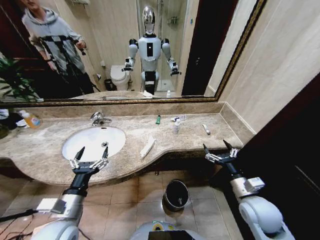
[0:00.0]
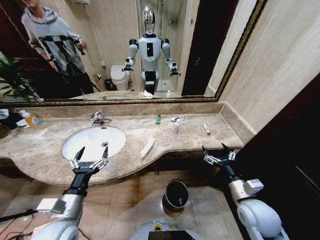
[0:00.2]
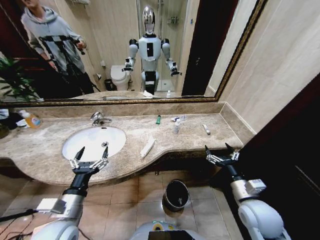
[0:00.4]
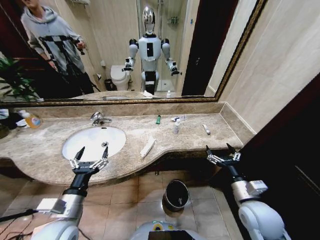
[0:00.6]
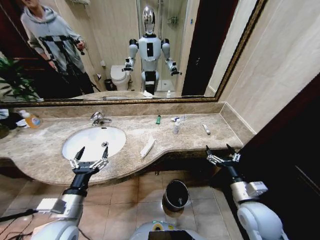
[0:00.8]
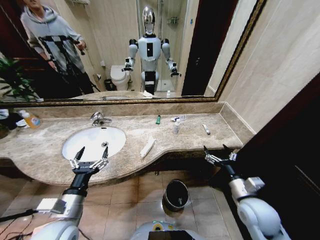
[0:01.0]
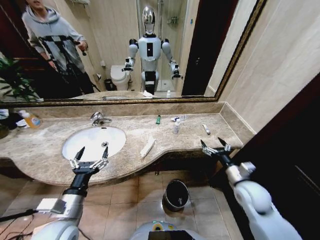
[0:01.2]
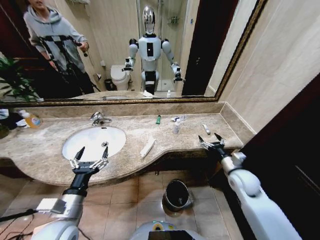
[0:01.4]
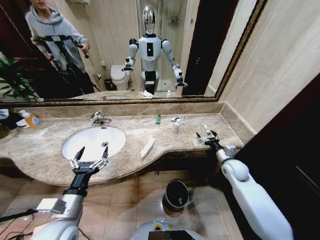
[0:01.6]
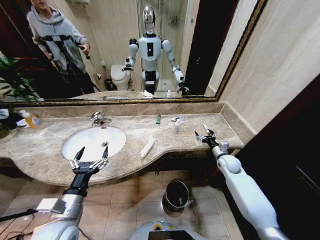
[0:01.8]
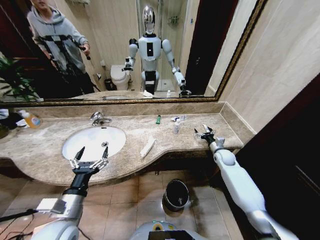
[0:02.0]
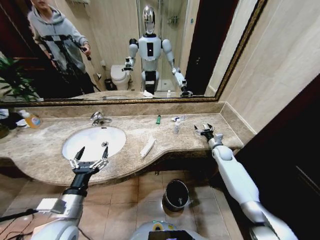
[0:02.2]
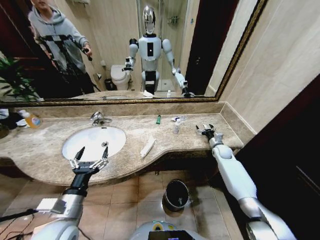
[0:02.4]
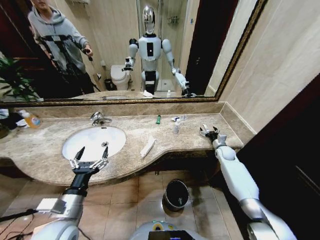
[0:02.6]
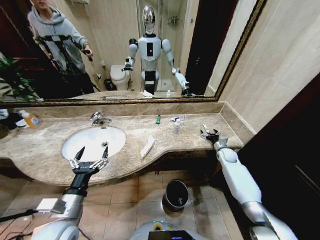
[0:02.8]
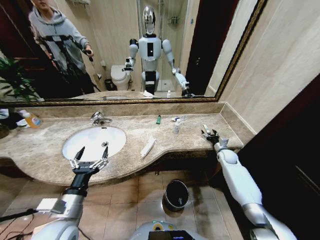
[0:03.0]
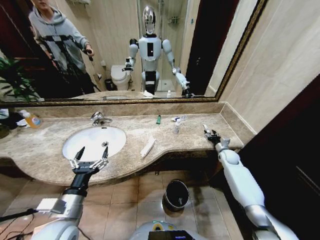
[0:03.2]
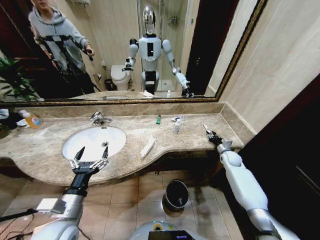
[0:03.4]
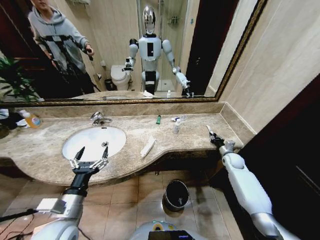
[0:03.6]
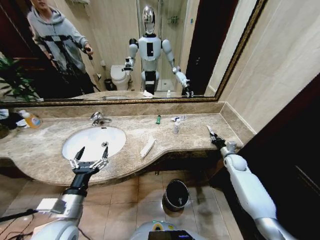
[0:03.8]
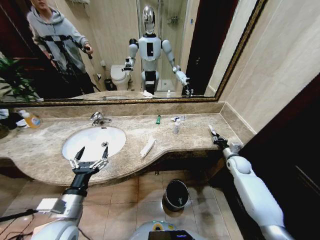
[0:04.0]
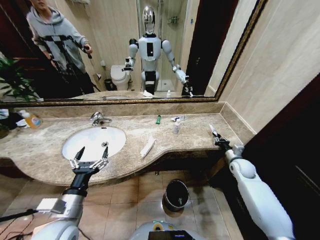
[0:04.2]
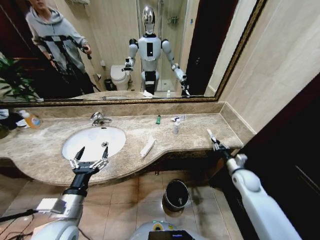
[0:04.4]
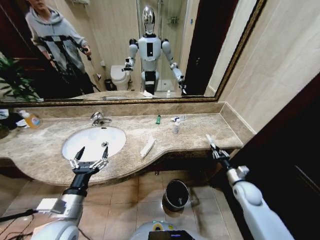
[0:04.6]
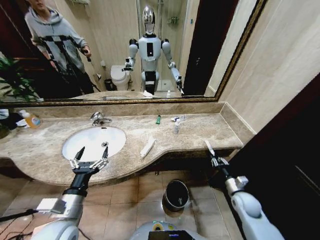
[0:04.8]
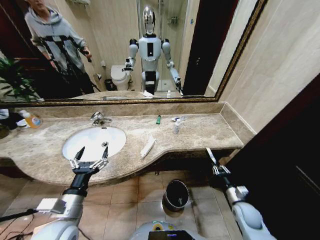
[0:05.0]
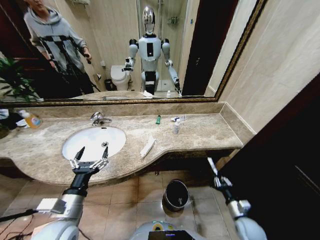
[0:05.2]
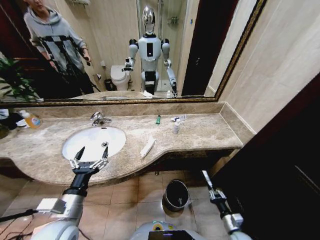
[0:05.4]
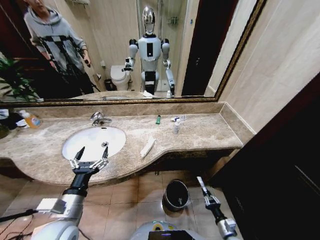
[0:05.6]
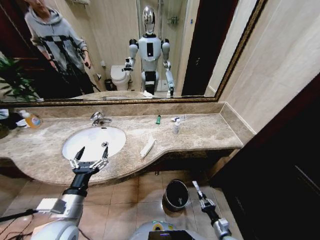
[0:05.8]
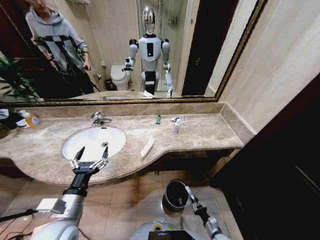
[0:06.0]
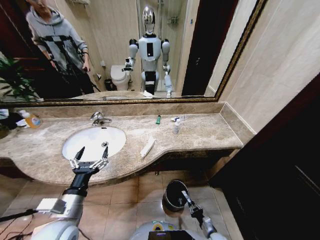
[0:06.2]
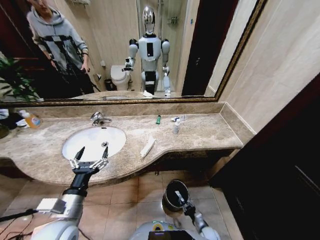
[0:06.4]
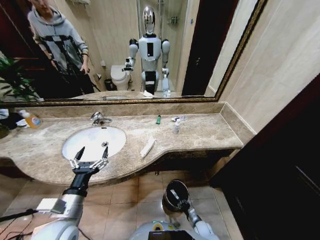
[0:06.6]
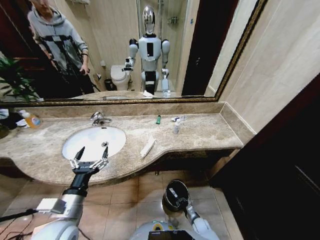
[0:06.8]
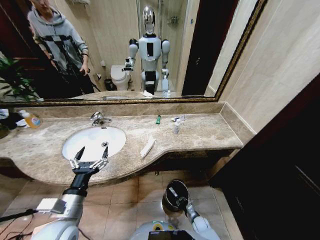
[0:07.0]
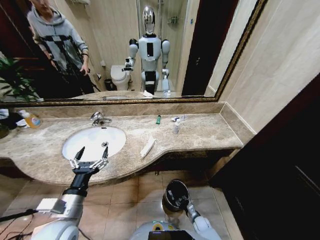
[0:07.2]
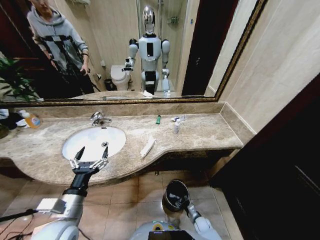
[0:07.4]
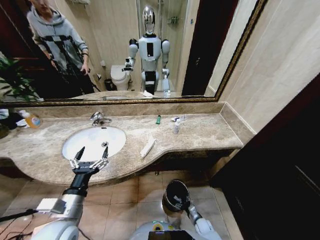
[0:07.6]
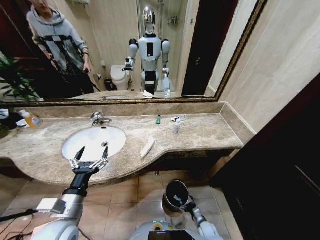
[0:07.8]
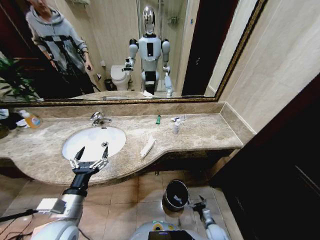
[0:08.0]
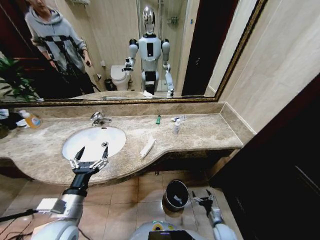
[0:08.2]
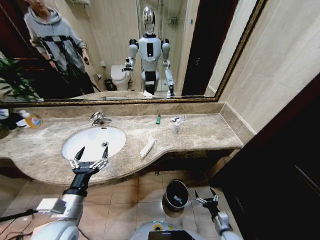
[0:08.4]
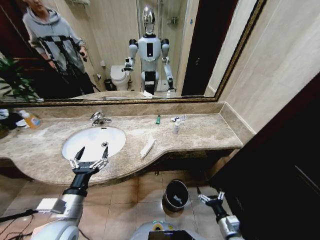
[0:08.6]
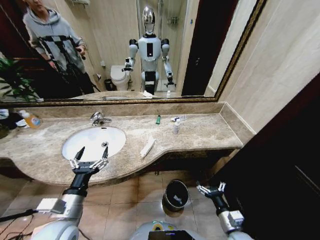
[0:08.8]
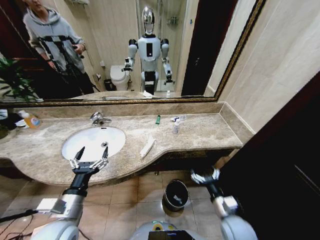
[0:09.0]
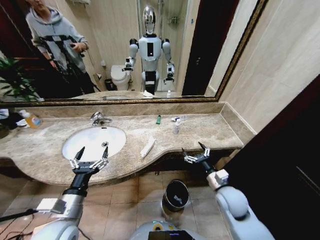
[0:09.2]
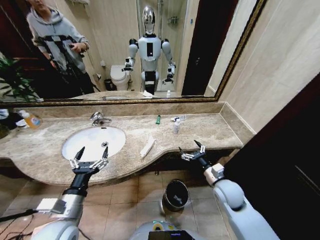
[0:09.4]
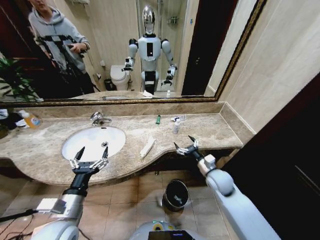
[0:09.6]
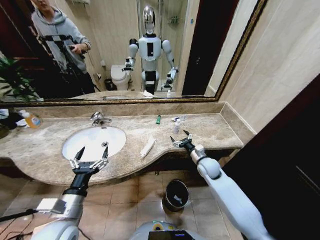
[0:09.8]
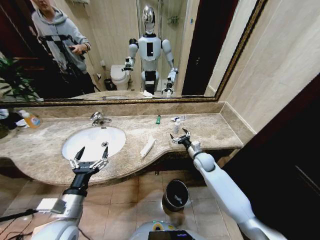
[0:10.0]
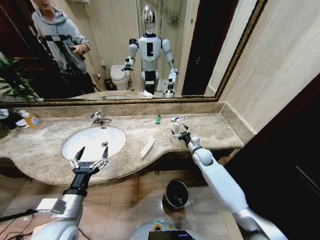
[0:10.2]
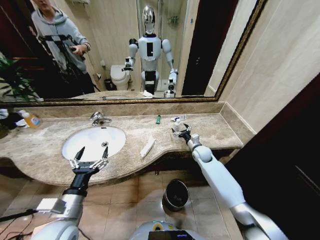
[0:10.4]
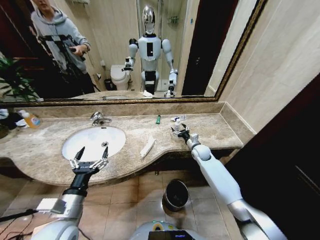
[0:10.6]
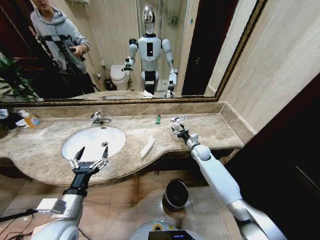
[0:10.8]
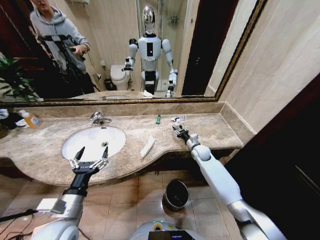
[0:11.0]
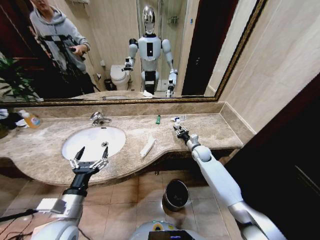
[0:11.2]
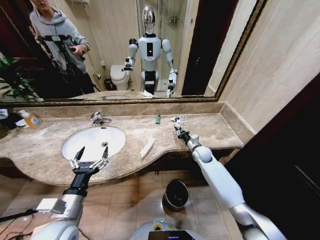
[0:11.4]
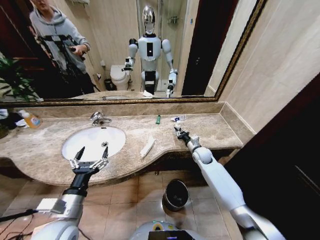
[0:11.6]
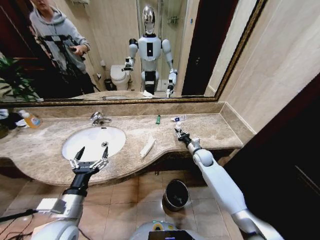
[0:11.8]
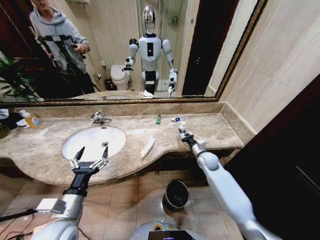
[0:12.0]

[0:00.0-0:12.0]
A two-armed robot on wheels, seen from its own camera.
Task of the whole recording: Pick up the trash from the sink and place it in the trash bin.
0:01.6 to 0:03.0: The right gripper moves forward, downward and to the right, some 15 cm.
0:03.0 to 0:04.4: The right gripper is displaced backward by some 15 cm, and closes up.
0:04.4 to 0:06.0: The right gripper heads downward and backward, covering some 35 cm.
0:06.0 to 0:07.6: The right gripper goes approximately 10 cm forward, downward and to the left, and opens up.
0:07.6 to 0:09.0: The right gripper travels upward by some 35 cm.
0:09.0 to 0:10.4: The right gripper moves forward, about 30 cm.
0:10.4 to 0:12.0: The right gripper is displaced backward by about 5 cm, and closes its fingers.

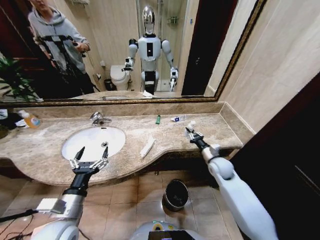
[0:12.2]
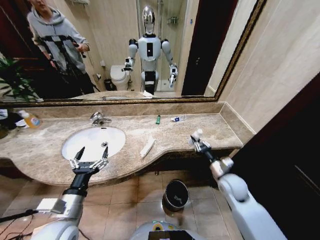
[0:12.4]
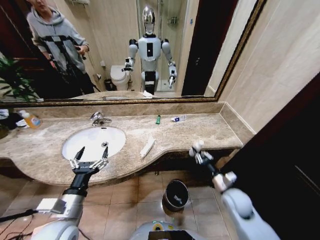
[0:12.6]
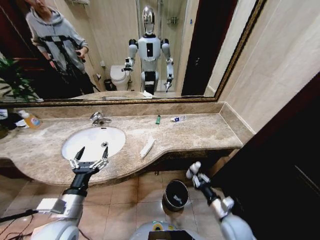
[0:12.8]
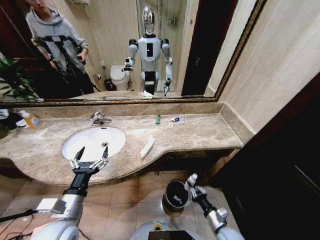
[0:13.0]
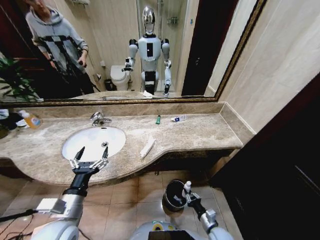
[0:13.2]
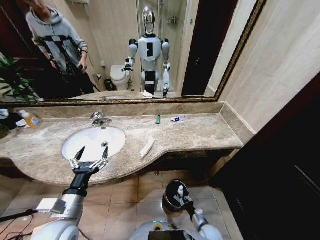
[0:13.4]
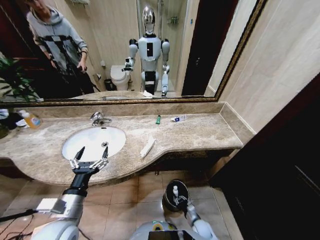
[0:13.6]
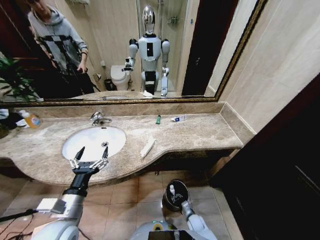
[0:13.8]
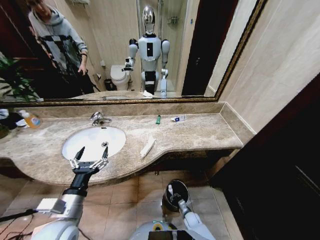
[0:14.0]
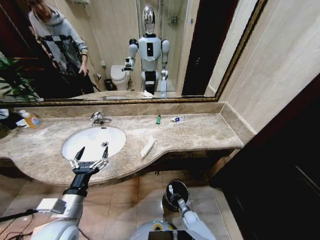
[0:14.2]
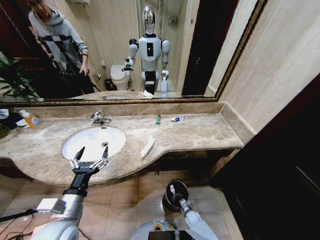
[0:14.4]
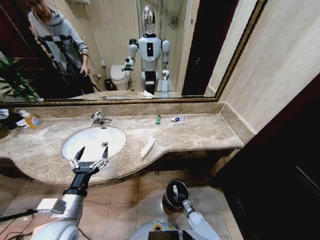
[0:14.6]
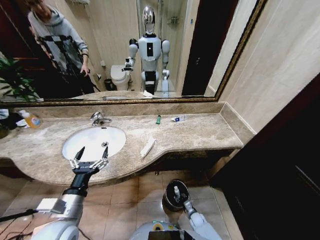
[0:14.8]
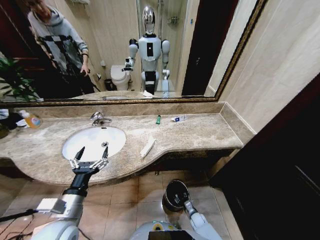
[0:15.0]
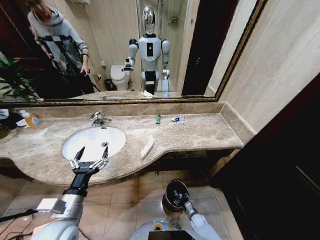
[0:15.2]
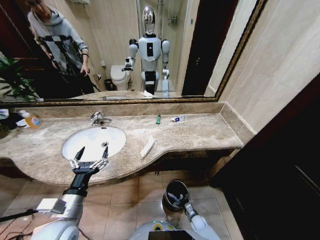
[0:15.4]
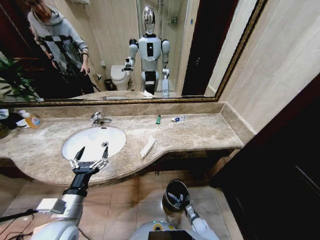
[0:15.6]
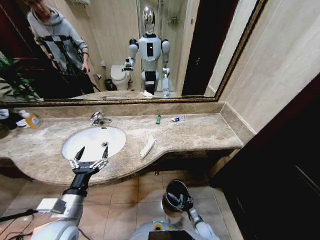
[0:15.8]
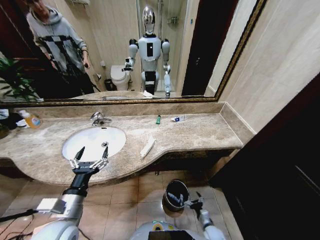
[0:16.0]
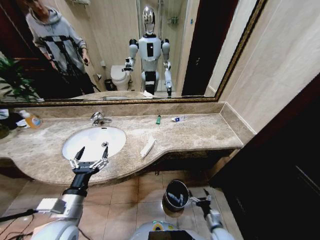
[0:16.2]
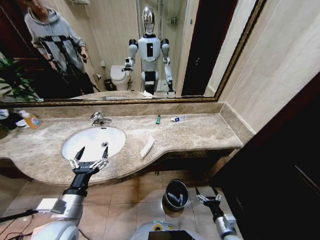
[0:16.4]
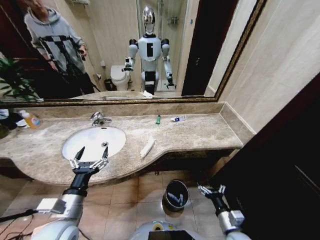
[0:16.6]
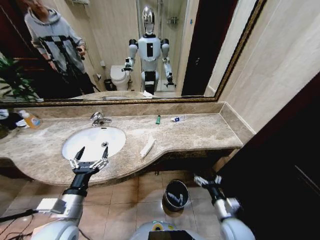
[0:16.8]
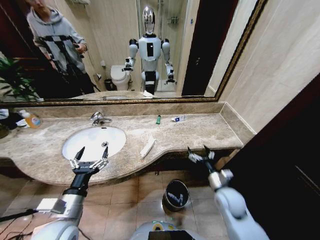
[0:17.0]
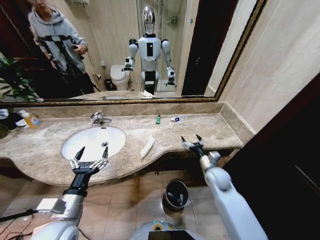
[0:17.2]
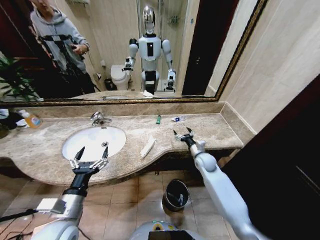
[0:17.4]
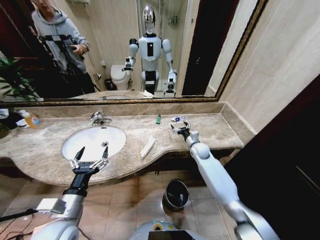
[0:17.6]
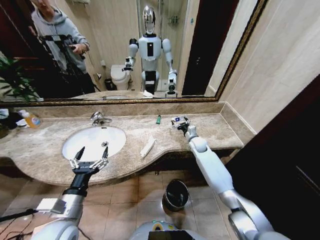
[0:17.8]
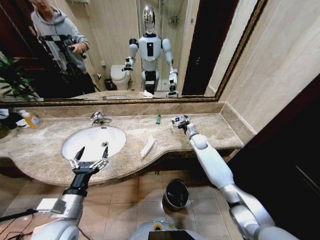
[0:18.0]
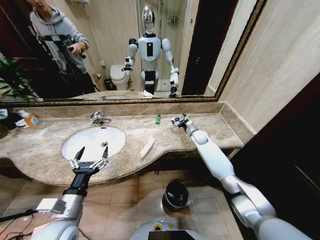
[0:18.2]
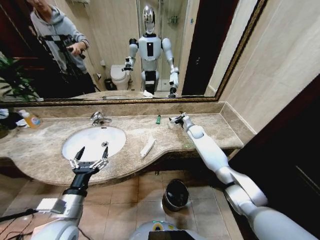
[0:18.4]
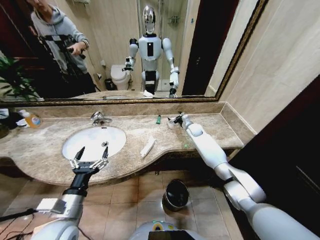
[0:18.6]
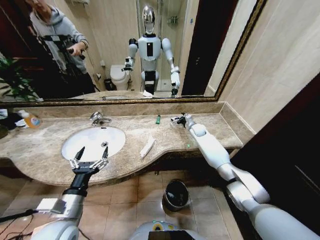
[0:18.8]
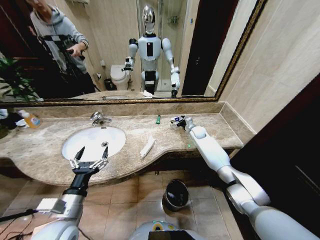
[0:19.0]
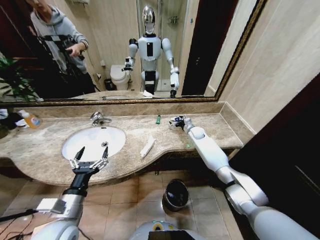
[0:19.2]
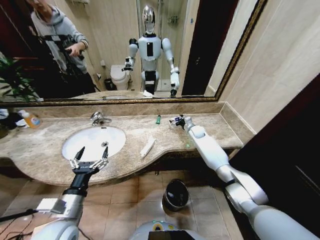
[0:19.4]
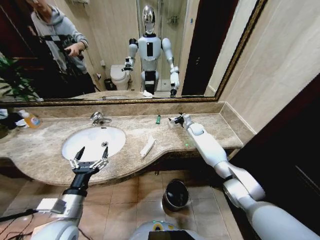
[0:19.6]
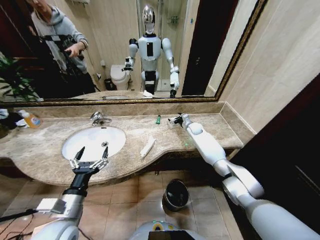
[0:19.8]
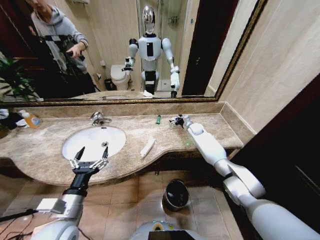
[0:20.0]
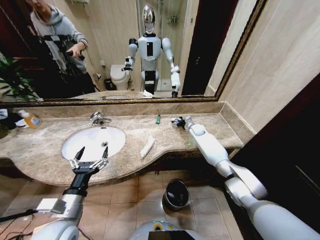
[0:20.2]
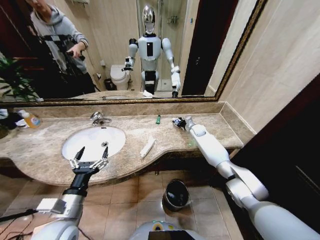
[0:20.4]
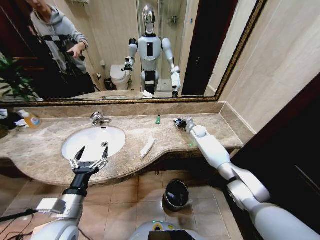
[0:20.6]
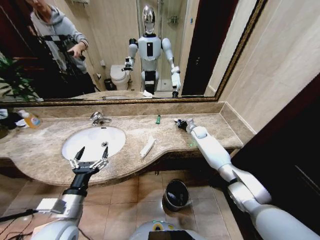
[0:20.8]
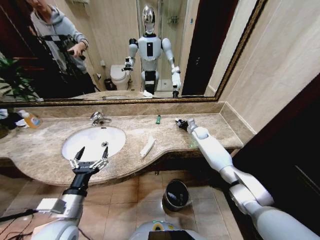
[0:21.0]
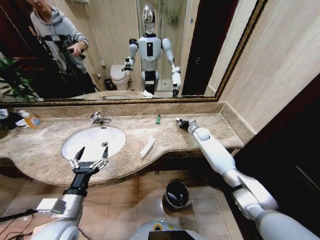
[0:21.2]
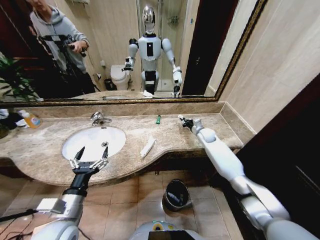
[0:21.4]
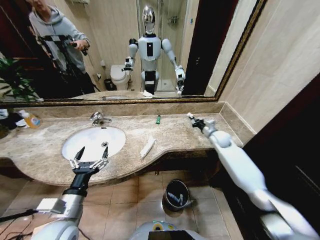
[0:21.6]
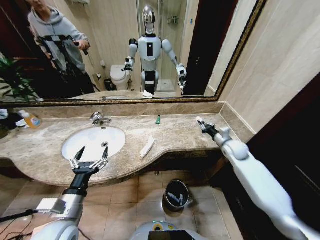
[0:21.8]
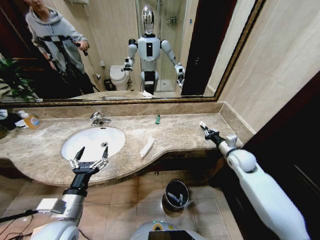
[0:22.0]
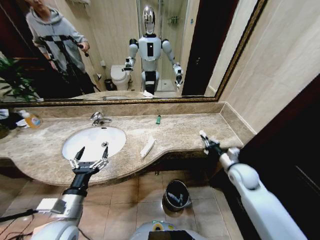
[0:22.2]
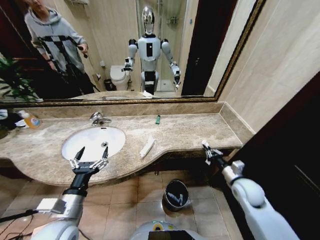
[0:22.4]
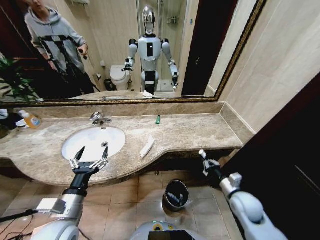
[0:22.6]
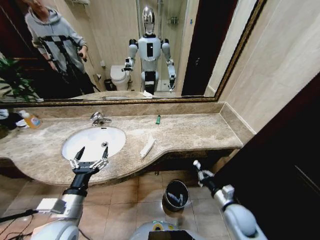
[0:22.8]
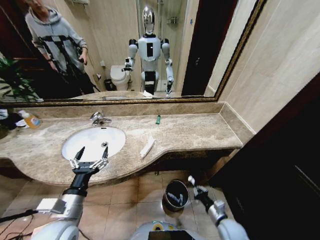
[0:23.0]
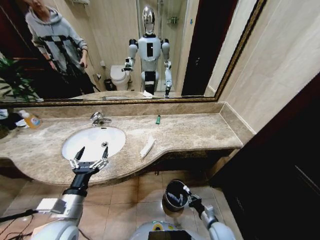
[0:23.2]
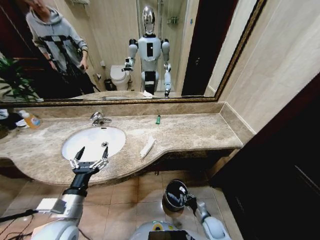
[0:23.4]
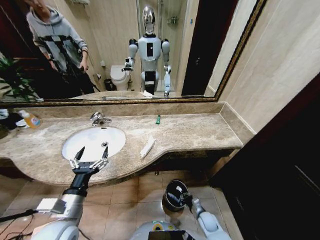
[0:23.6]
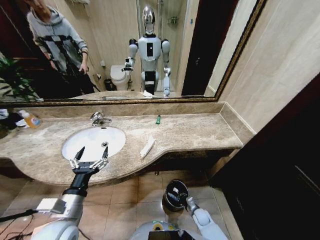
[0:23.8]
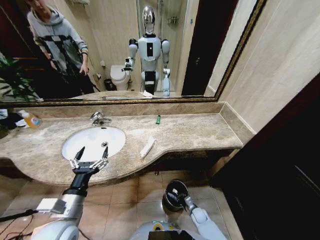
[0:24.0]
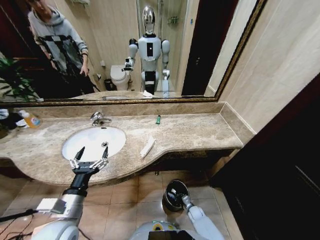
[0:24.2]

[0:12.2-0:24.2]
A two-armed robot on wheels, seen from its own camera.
Task of the whole recording: Pick up the trash from the sink and place it in the trash bin.
0:12.2 to 0:13.8: The right gripper goes some 35 cm downward and backward.
0:13.8 to 0:15.2: The right gripper shifts by some 5 cm, and opens up.
0:15.2 to 0:16.6: The right gripper goes some 30 cm upward.
0:16.6 to 0:18.2: The right gripper heads forward, covering about 50 cm.
0:18.2 to 0:19.8: The right gripper travels forward by about 5 cm.
0:19.8 to 0:21.2: The right gripper moves roughly 5 cm, and closes up.
0:21.2 to 0:22.6: The right gripper goes some 35 cm backward.
0:22.6 to 0:24.2: The right gripper travels downward by roughly 30 cm.
